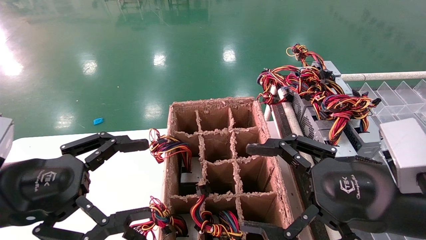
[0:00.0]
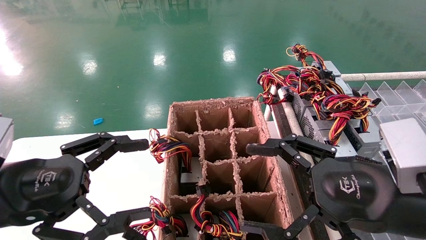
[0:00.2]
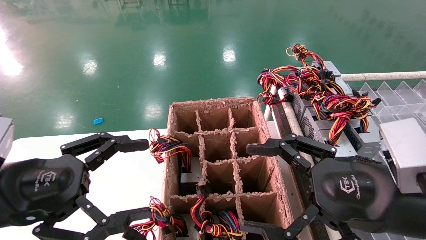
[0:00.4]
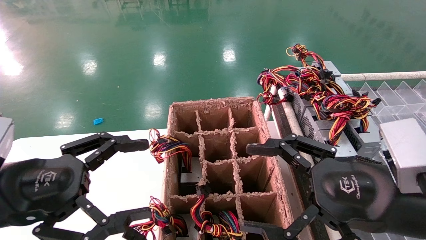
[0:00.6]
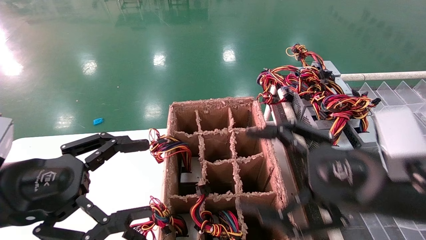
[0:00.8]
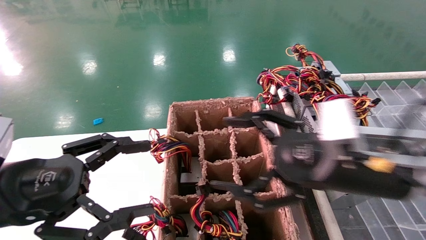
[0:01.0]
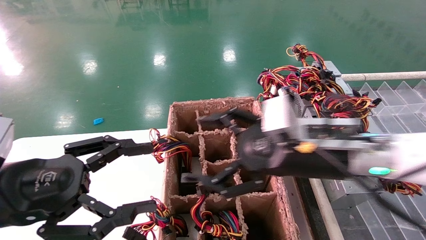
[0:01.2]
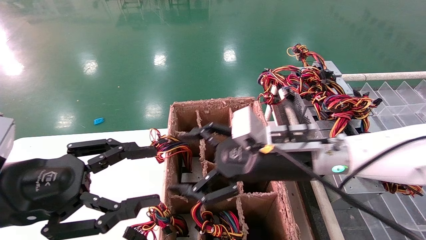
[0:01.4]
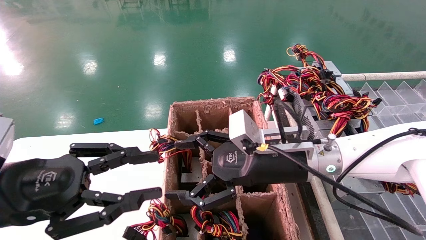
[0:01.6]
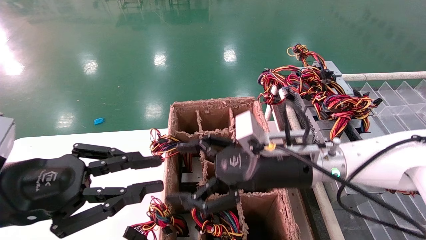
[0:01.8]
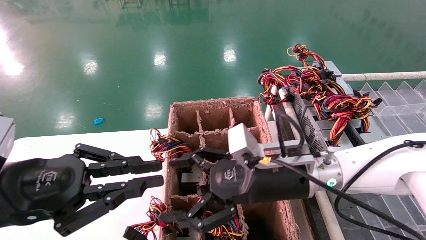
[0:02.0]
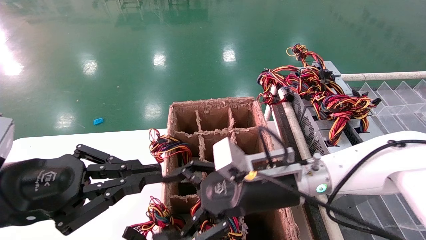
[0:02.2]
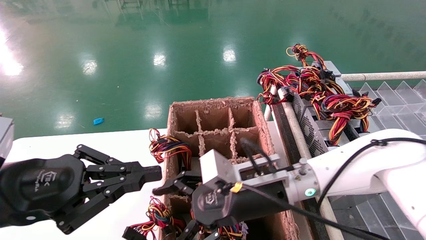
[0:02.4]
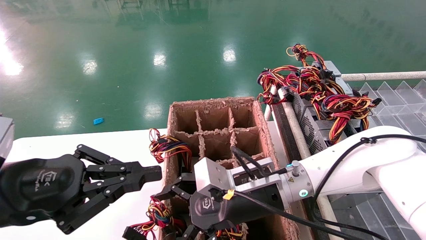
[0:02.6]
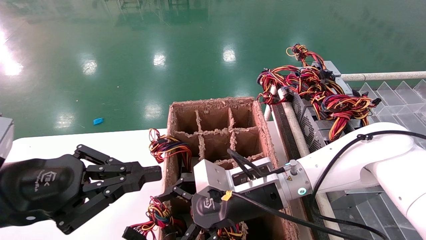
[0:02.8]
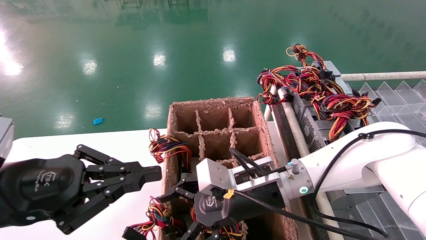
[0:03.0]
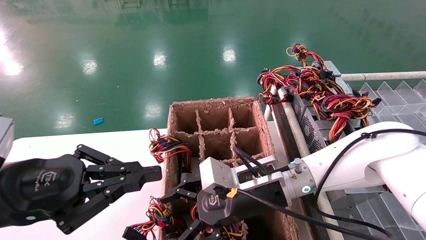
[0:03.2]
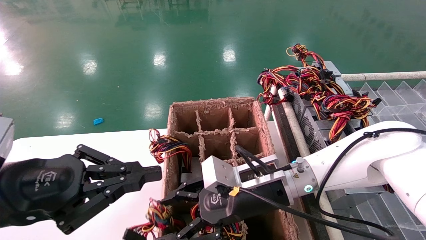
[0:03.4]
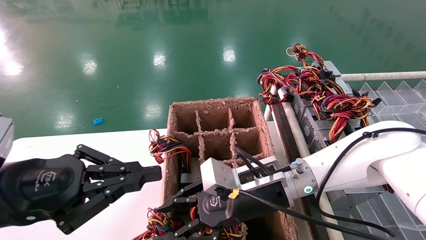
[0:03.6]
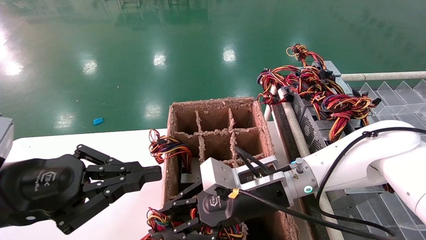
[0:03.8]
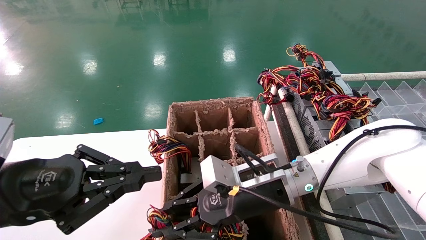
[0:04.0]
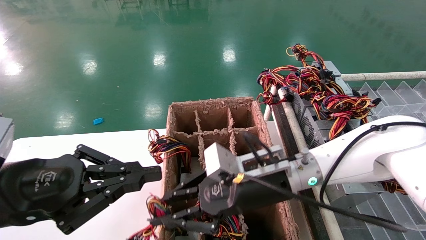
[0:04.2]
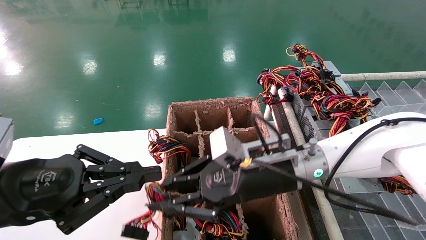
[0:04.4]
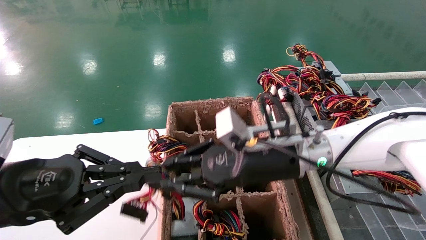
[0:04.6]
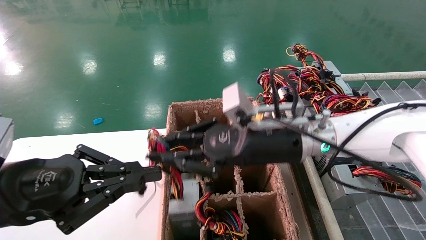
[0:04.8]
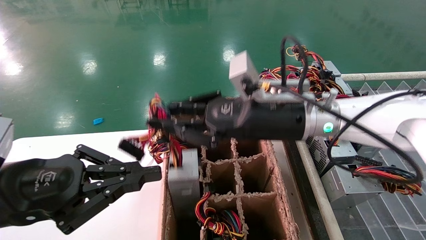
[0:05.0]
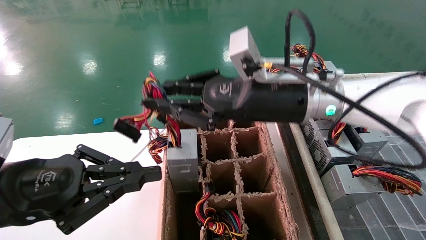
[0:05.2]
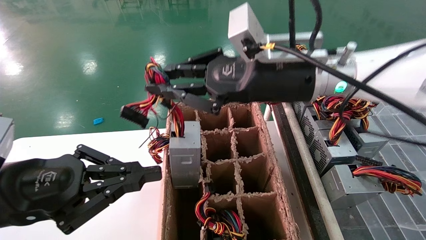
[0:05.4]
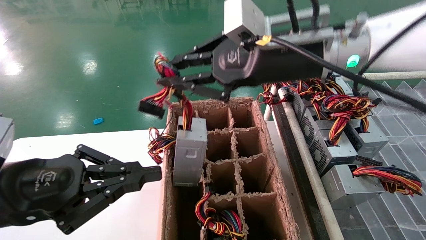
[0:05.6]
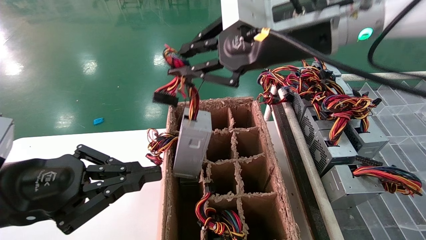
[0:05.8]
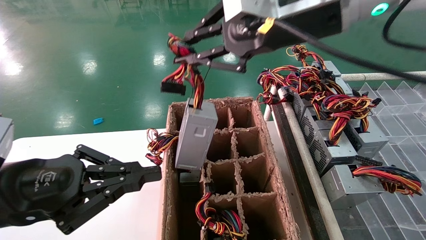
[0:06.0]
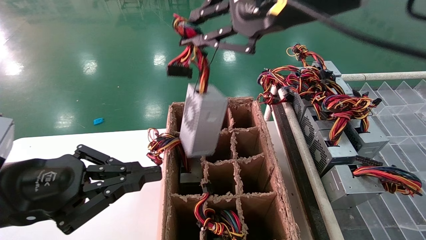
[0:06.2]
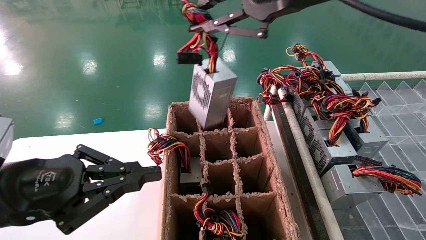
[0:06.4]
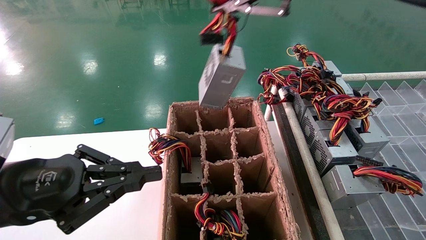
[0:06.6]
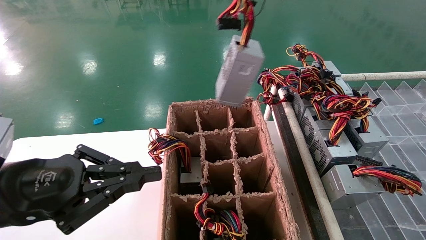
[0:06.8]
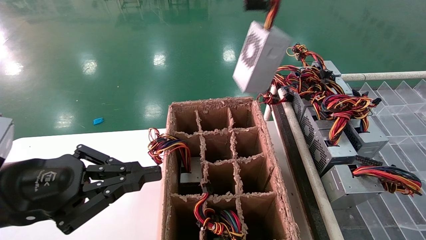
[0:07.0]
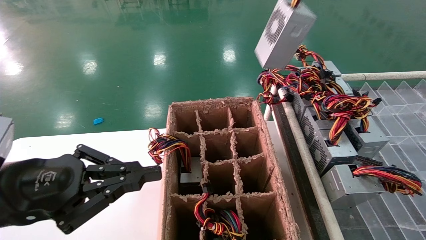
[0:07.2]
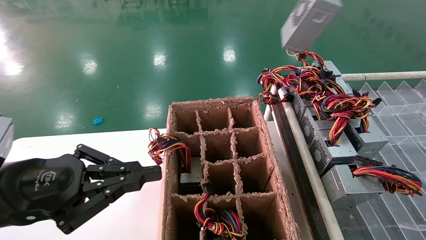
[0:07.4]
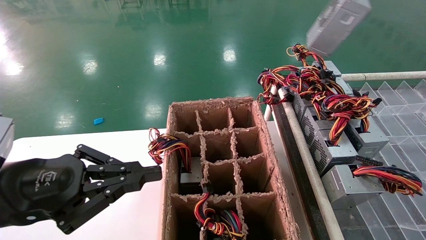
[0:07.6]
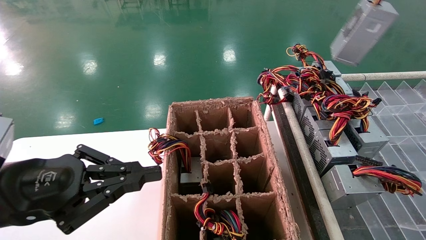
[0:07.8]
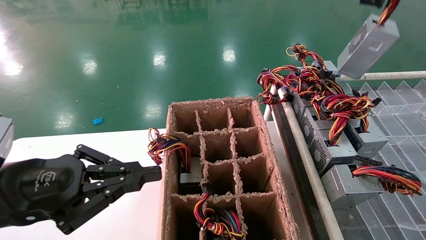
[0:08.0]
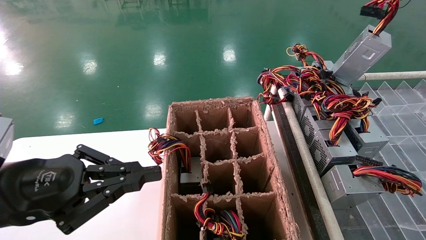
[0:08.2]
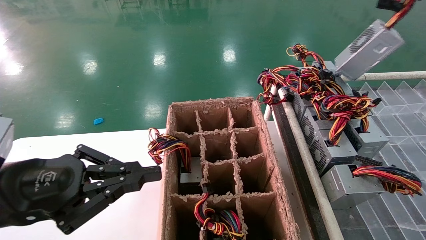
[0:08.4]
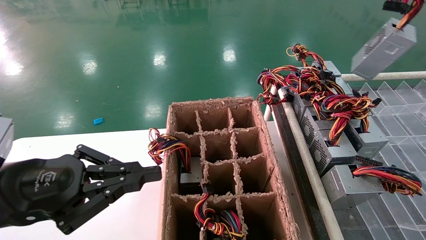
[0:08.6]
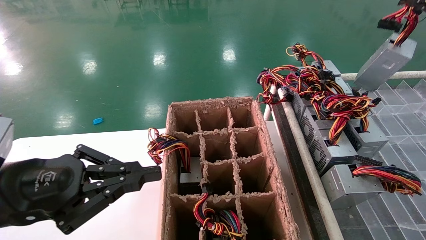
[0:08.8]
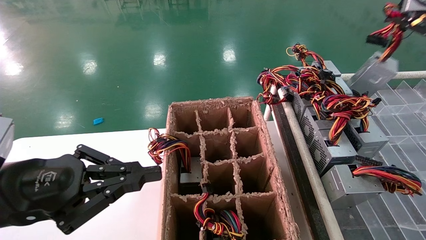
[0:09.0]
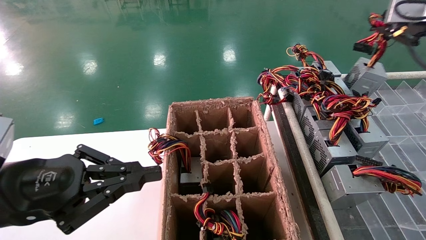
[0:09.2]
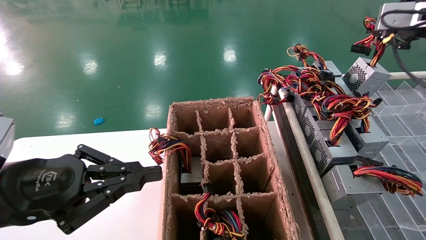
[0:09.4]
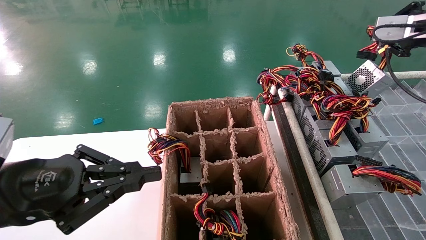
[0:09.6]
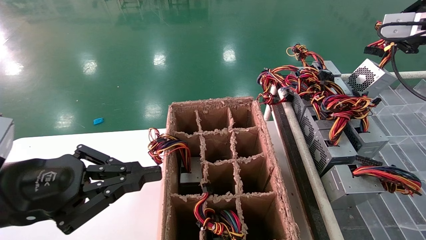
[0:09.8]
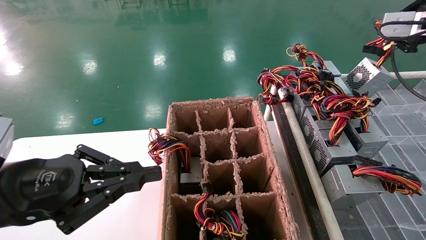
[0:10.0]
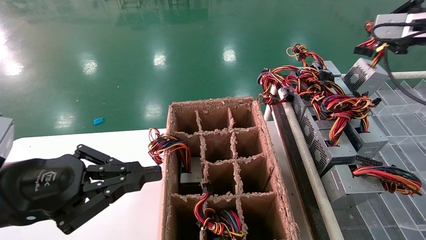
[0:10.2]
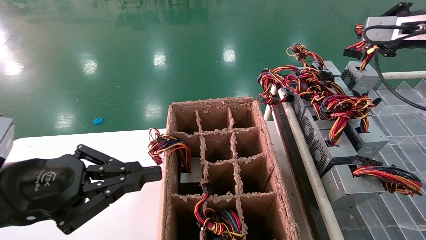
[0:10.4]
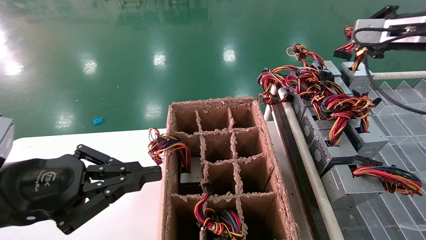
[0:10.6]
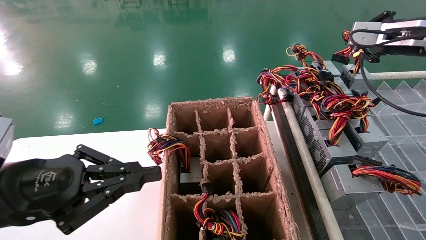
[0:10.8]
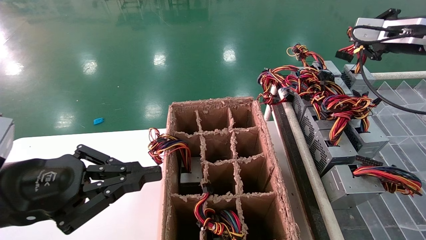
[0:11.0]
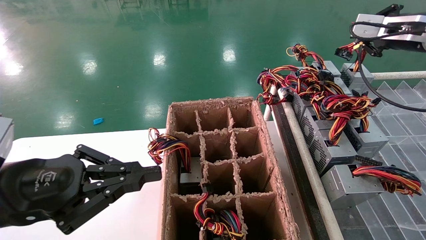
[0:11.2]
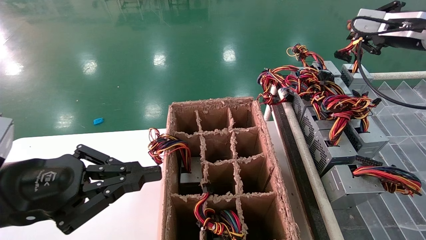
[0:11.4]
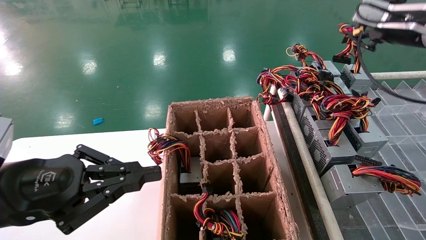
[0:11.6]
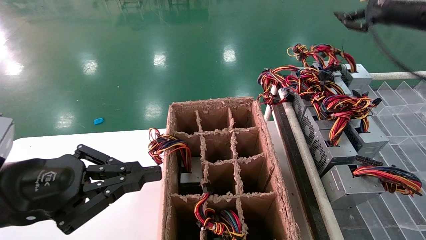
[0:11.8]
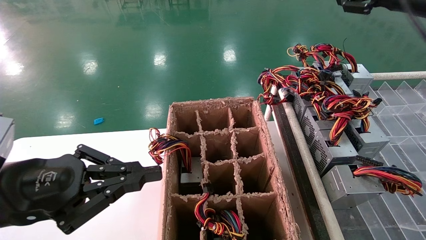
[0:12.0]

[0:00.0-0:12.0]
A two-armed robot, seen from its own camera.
Step, 0:01.2 to 0:04.0: Grab the main unit power supply from the containment box.
0:00.0 to 0:01.6: The left gripper closes, while the right gripper shifts some 15 cm forward and to the left.
0:01.6 to 0:03.0: The left gripper closes. Meanwhile the right gripper moves about 5 cm.
0:03.0 to 0:04.4: The right gripper closes up.
0:04.4 to 0:06.0: The right gripper shifts roughly 25 cm upward.
0:06.0 to 0:07.6: The right gripper moves to the right and upward, approximately 25 cm.
0:07.6 to 0:09.0: The right gripper heads downward, to the right and forward, covering about 15 cm.
0:09.0 to 0:10.4: The right gripper goes approximately 5 cm forward.
0:10.4 to 0:12.0: The right gripper opens up.

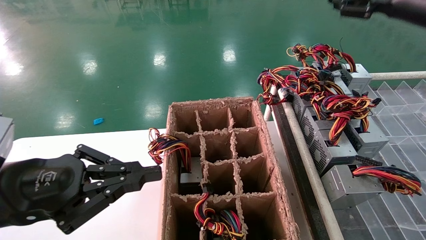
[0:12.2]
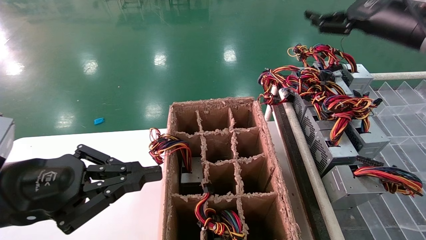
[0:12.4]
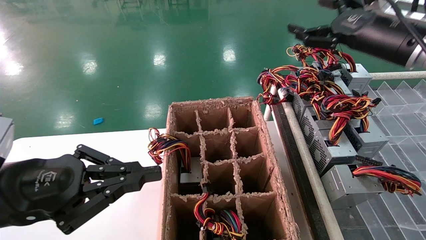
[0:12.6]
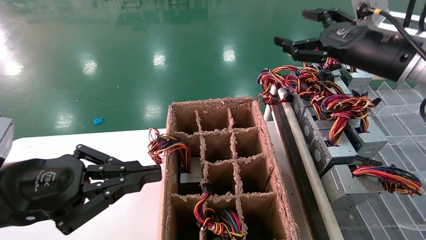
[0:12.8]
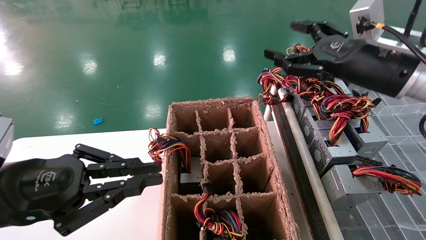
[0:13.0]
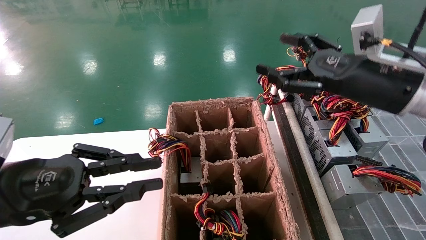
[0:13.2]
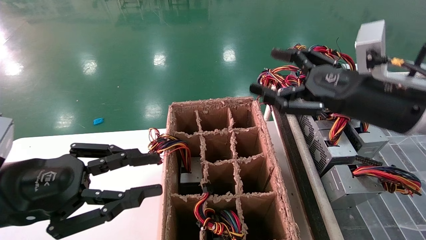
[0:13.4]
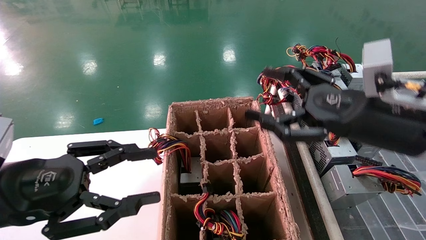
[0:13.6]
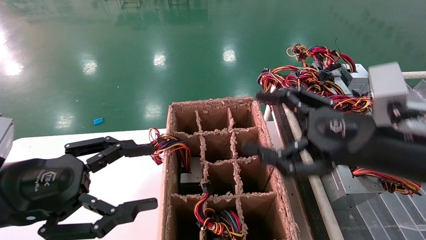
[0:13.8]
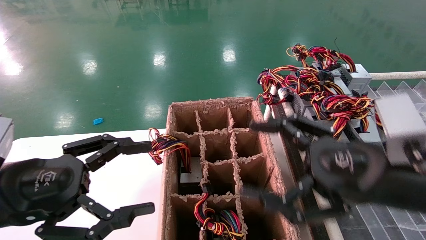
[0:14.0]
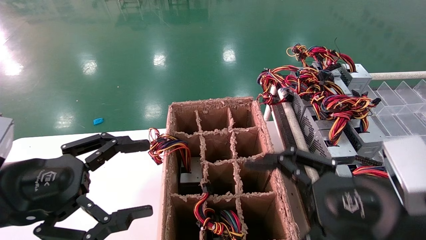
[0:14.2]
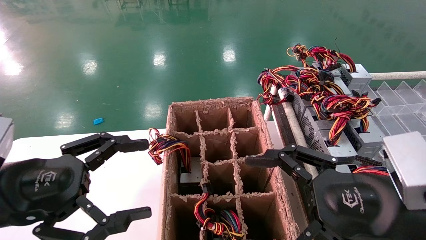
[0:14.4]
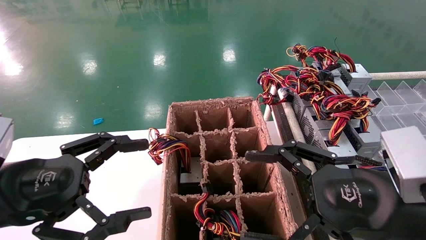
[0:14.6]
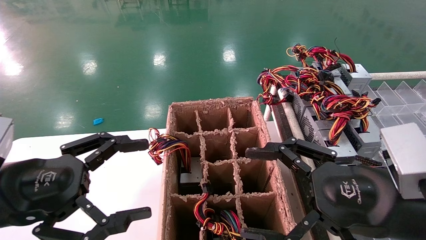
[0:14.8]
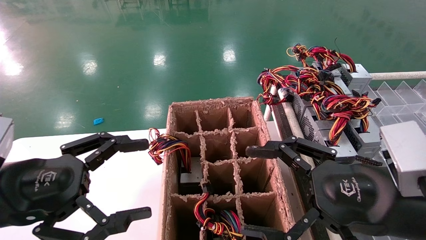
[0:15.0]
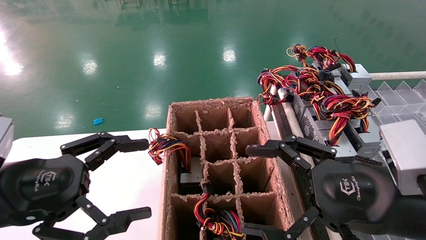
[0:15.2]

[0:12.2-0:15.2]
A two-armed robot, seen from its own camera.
0:12.2 to 0:13.8: The left gripper opens up. Meanwhile the right gripper travels downward, backward and to the left by about 25 cm.
0:13.8 to 0:15.2: The right gripper goes roughly 5 cm backward, while the left gripper opens its fingers.

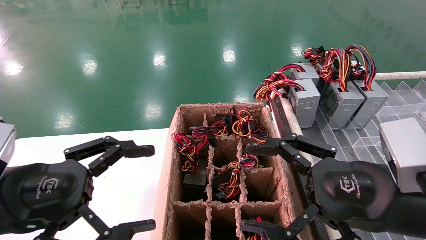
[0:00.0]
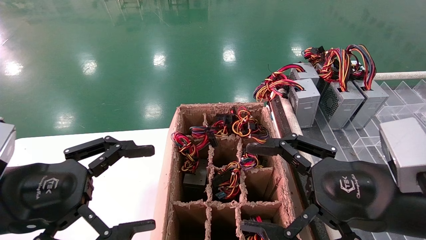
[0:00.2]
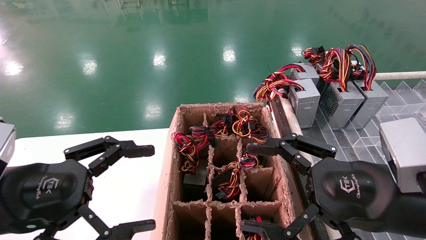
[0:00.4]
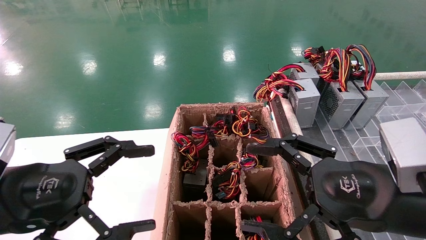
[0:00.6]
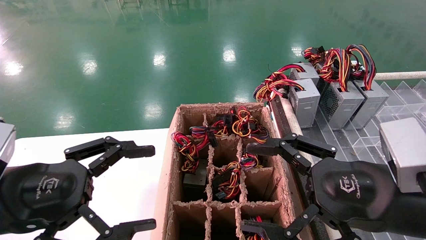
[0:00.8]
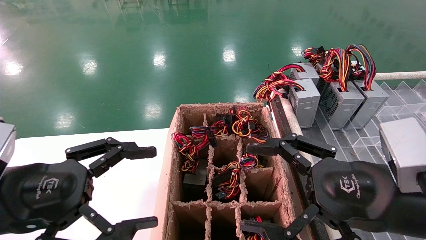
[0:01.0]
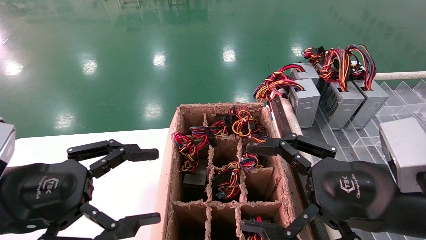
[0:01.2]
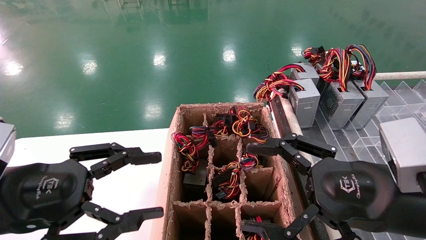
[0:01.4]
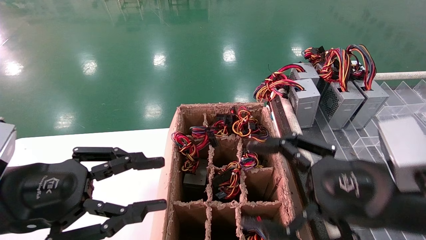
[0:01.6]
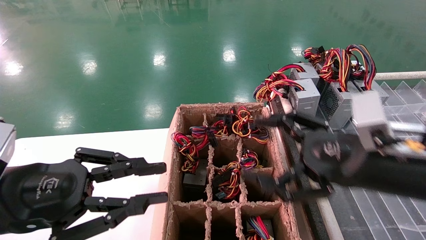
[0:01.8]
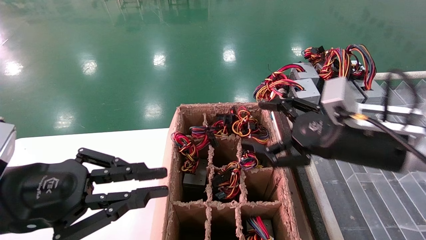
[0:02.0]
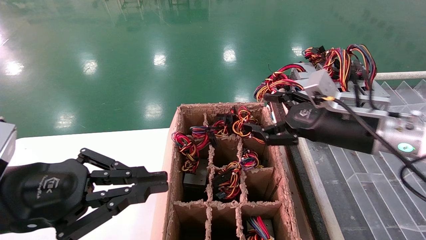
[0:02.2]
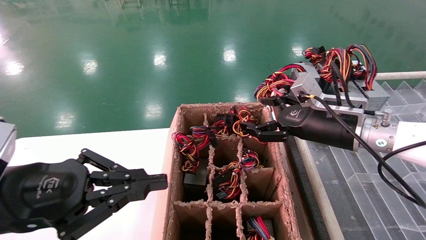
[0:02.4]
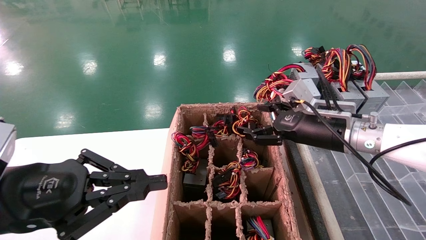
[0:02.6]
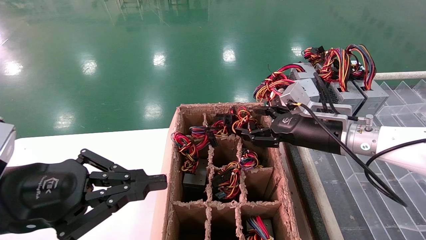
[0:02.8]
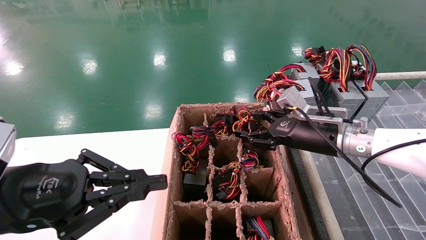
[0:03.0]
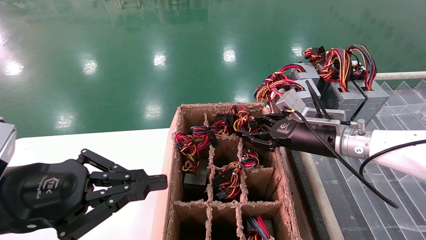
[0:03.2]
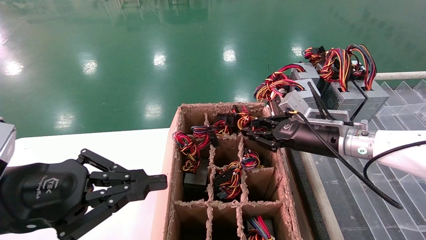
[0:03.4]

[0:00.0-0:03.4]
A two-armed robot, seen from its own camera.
0:00.0 to 0:01.6: The left gripper closes.
0:01.6 to 0:03.4: The right gripper shifts about 20 cm forward, and closes up. The left gripper closes its fingers.
